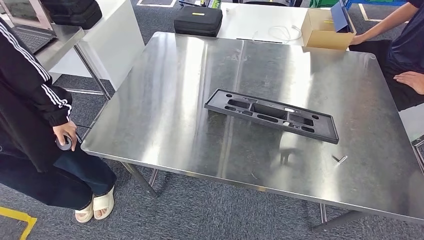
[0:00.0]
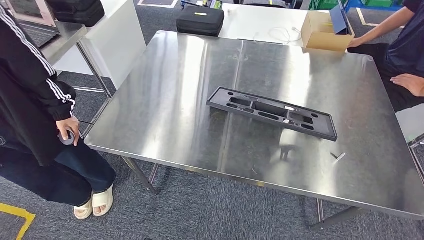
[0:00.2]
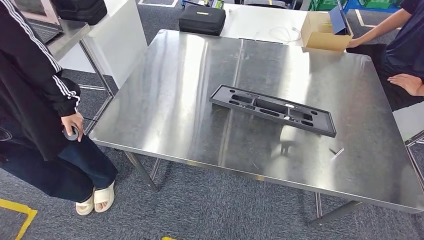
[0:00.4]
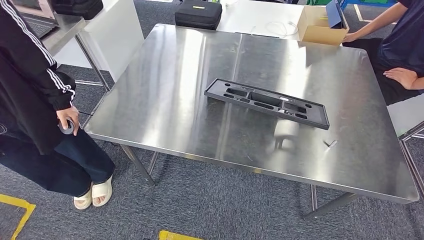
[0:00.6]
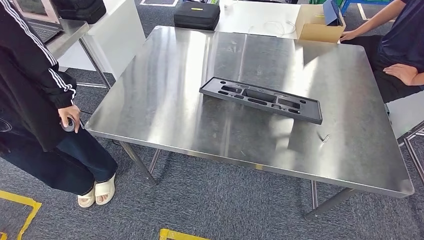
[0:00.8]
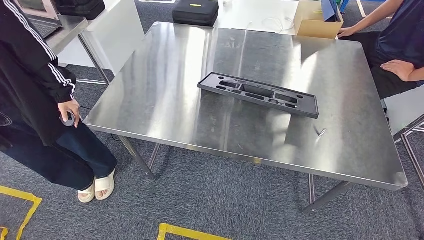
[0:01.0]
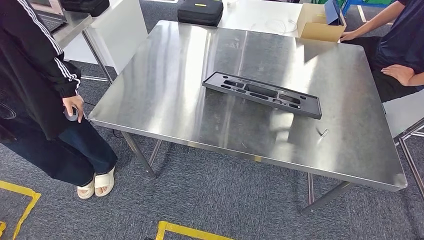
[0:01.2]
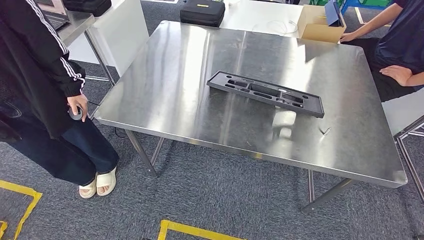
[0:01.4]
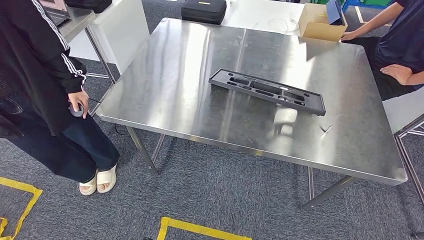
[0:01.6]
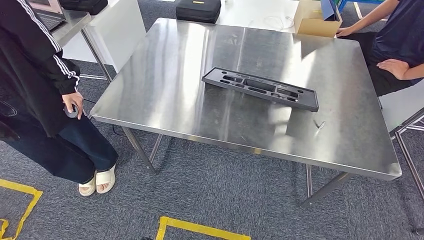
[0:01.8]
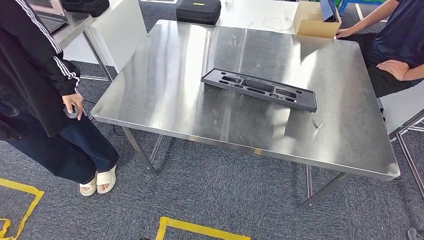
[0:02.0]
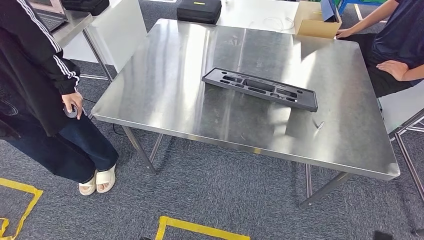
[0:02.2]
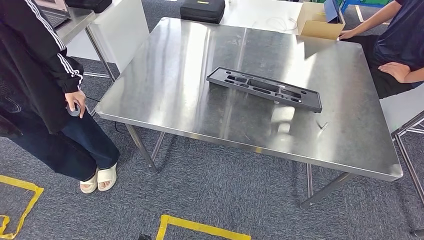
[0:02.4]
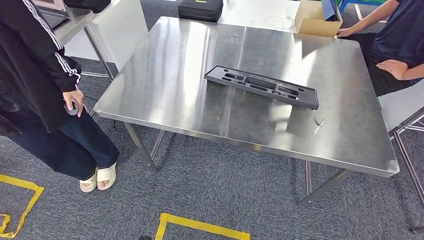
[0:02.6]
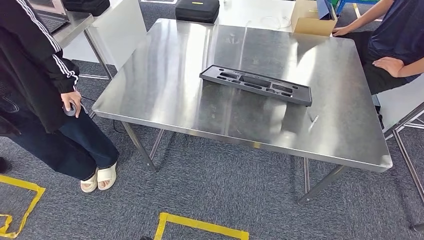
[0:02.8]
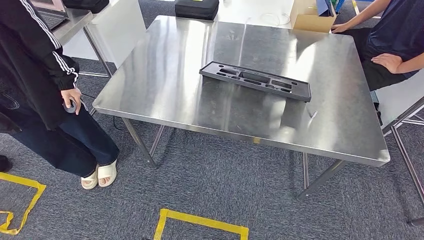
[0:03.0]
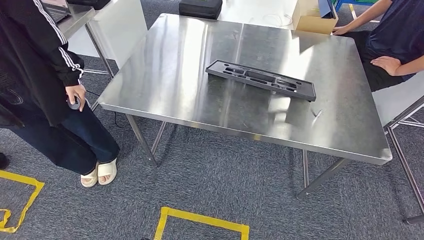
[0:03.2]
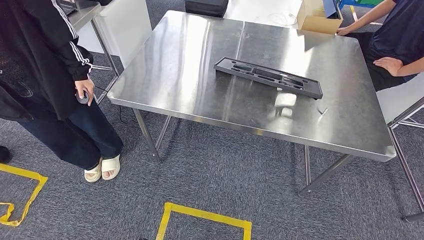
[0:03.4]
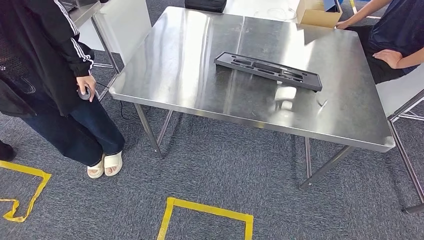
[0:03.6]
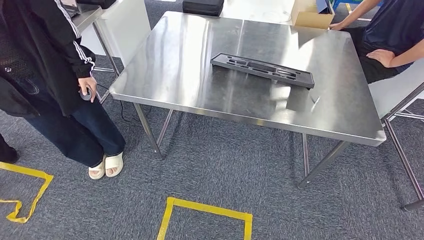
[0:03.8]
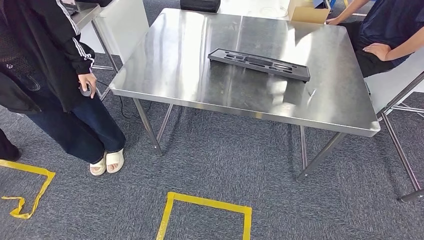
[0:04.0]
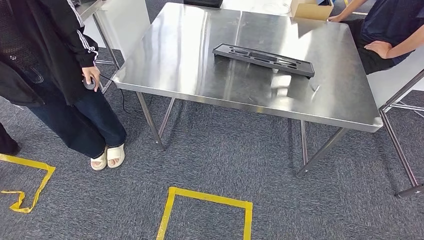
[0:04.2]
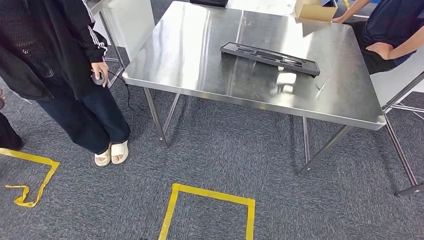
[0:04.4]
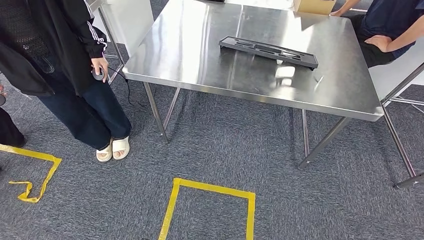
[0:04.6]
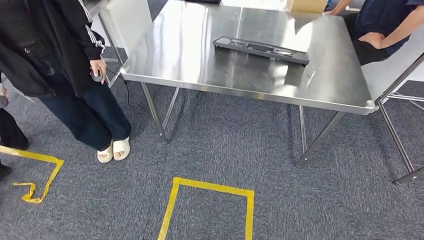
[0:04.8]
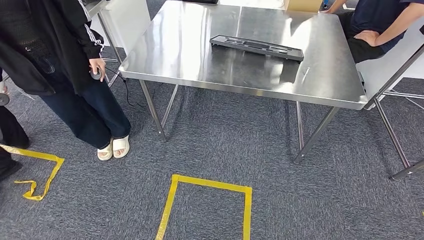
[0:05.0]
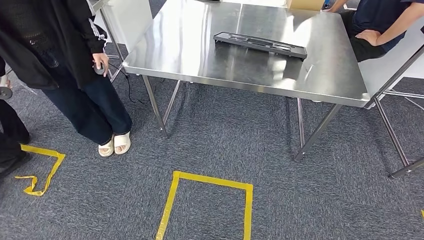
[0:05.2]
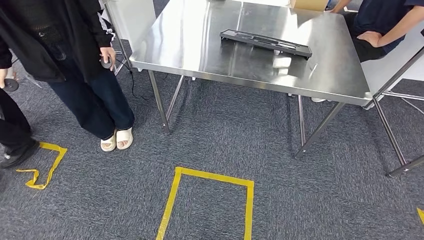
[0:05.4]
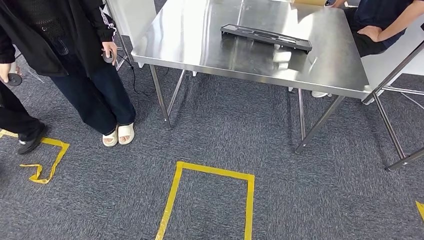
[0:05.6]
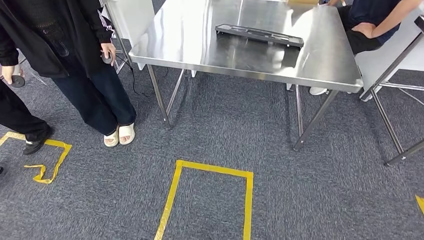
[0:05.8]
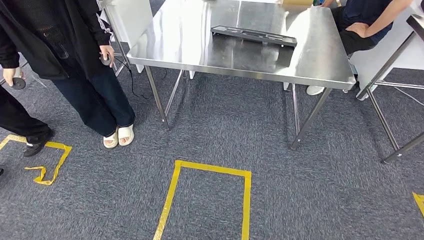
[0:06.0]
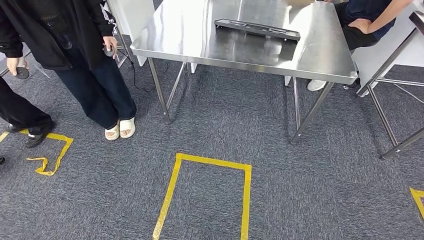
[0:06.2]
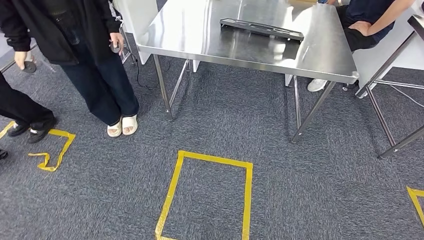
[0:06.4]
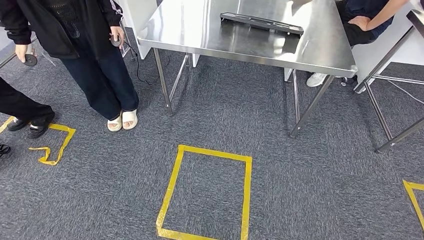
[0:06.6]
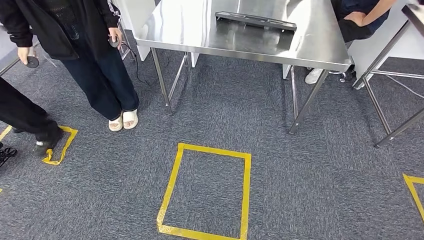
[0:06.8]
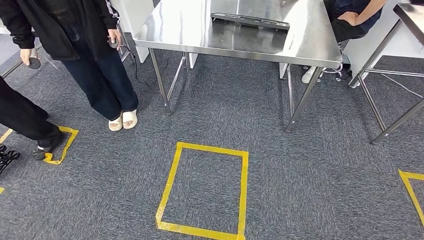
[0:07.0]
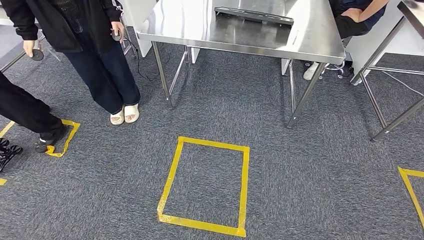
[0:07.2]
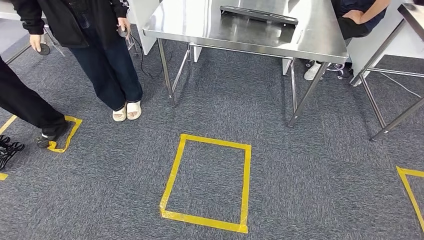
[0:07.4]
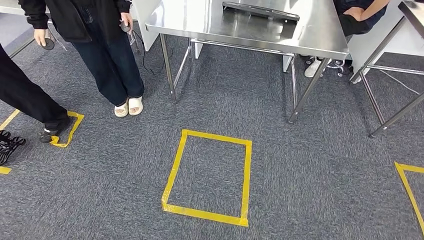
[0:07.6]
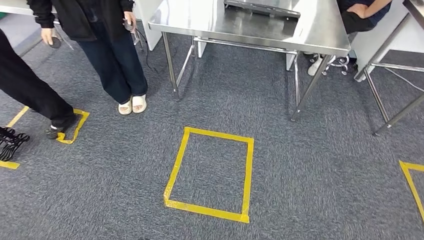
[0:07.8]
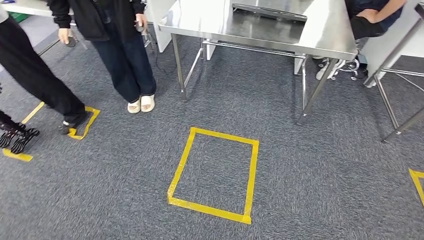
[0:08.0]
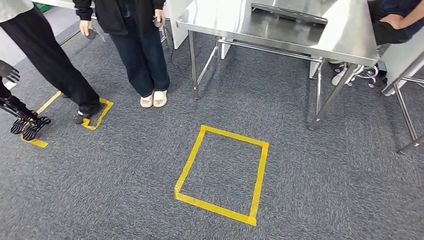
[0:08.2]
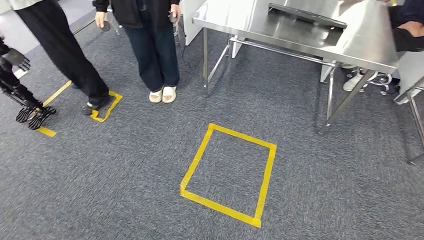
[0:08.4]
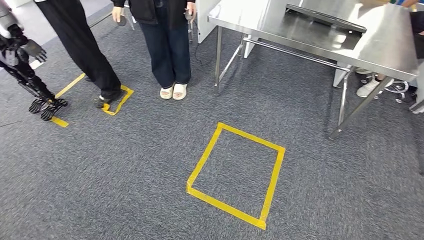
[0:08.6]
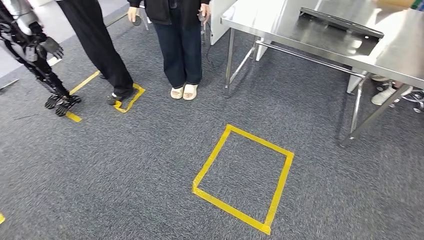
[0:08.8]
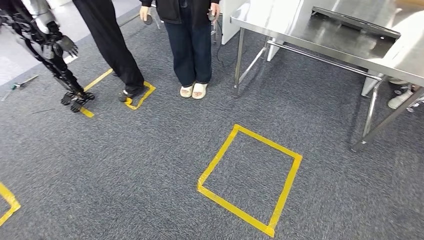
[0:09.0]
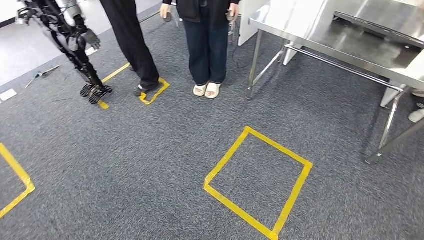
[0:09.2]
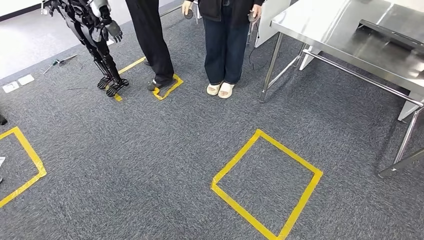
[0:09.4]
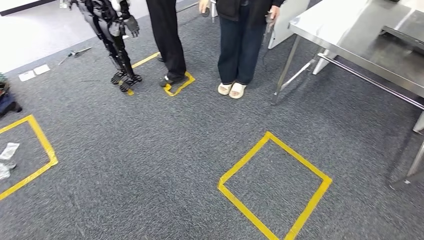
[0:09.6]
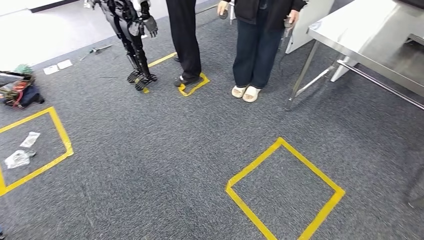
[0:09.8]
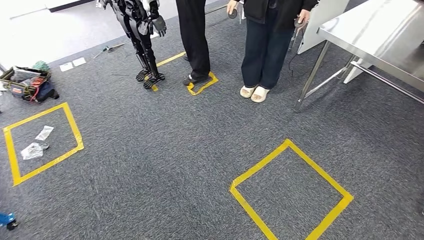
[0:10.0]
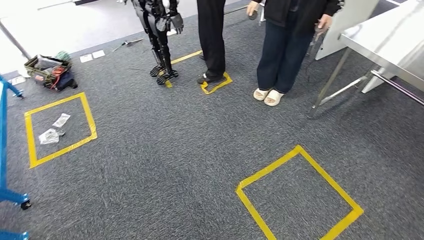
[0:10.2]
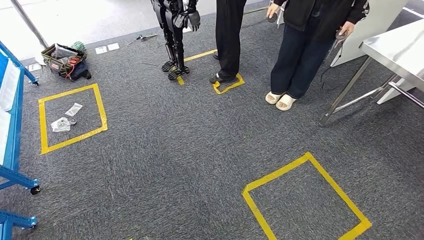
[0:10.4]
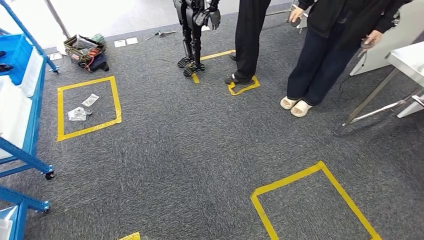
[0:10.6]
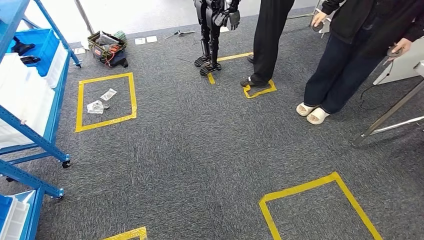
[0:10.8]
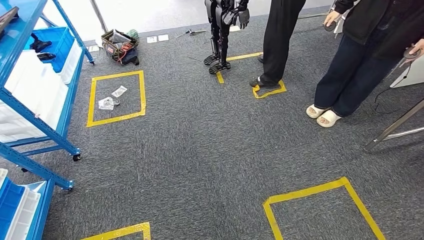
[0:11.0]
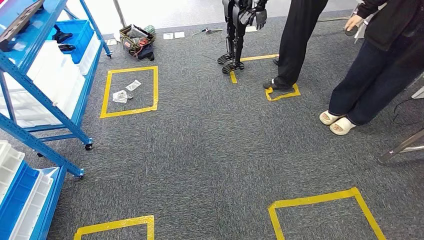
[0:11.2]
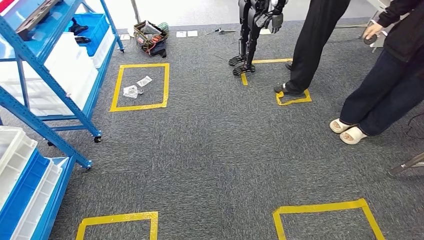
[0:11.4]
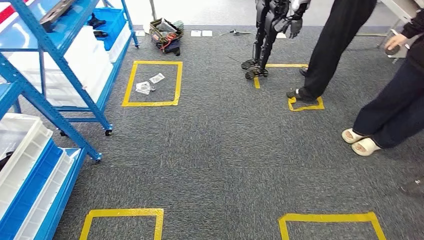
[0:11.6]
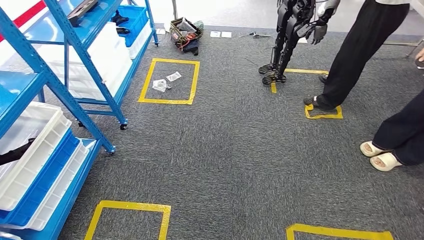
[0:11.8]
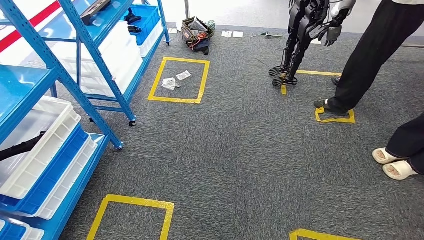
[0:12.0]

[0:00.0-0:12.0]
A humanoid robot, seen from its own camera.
Step, 0:00.0 to 0:04.2: Insert the large material into the corresponding slot on the workbench.

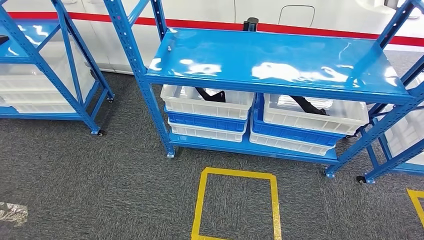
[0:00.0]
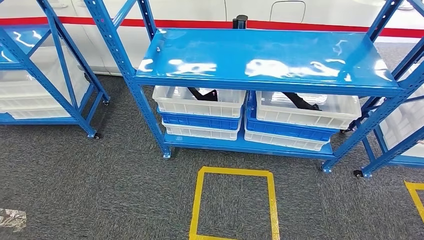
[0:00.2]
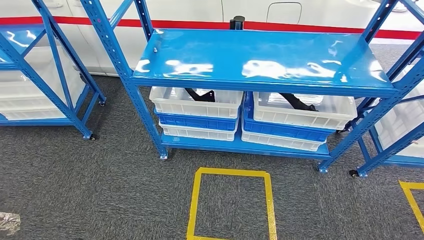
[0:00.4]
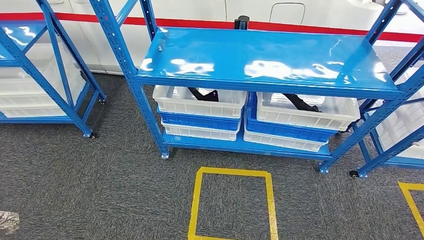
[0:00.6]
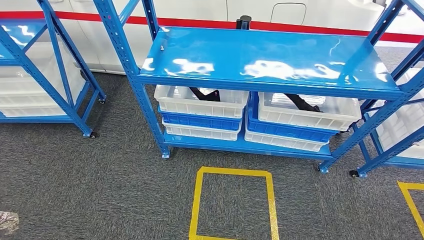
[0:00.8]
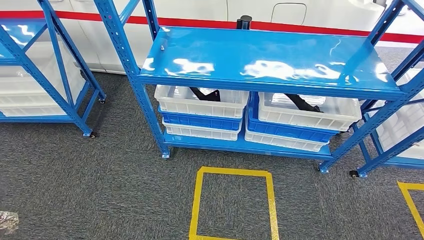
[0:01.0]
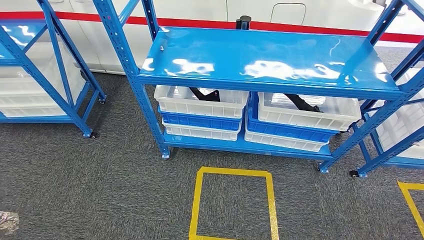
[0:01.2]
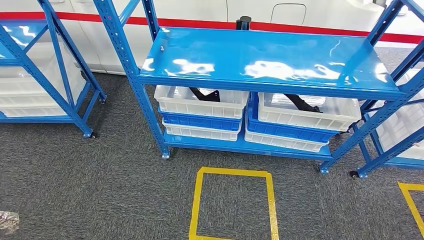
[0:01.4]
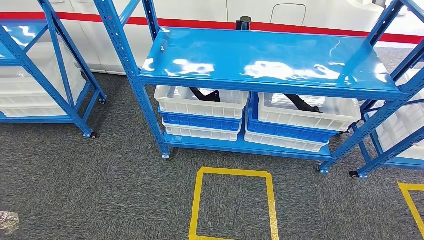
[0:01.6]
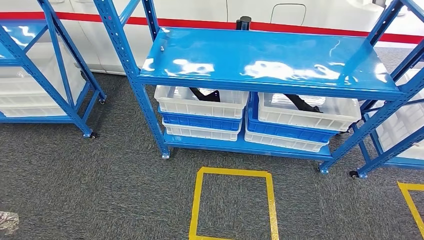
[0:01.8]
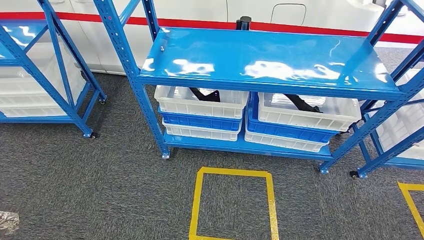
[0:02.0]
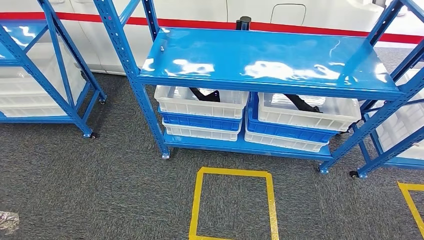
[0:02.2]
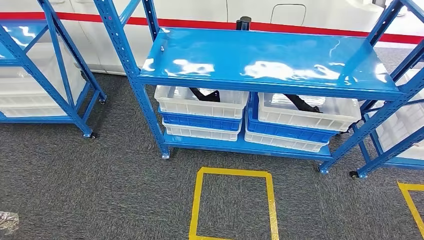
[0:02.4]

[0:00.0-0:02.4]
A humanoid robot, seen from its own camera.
Step, 0:00.0 to 0:02.2: Move to the initial position of the shelf.
0:01.2 to 0:02.4: The left hand shifts approximately 5 cm backward.
